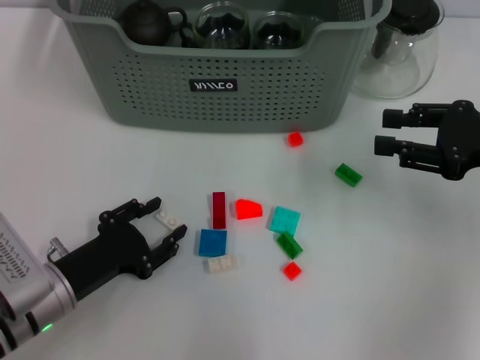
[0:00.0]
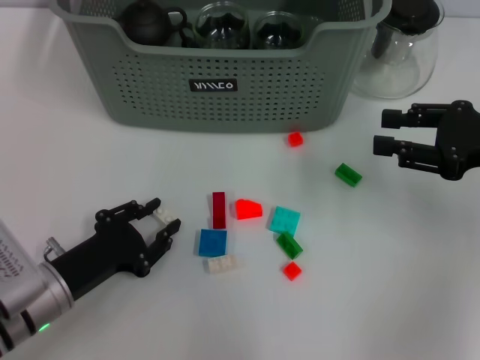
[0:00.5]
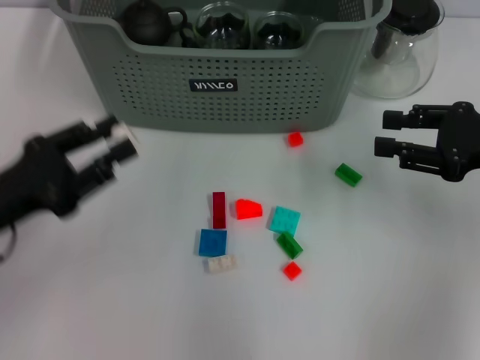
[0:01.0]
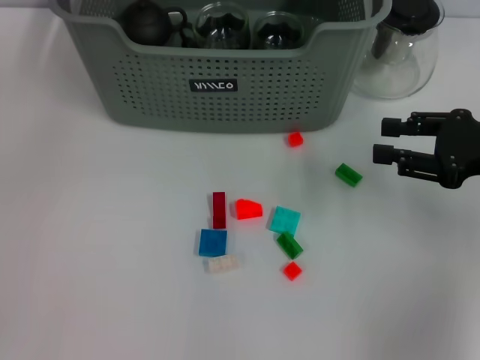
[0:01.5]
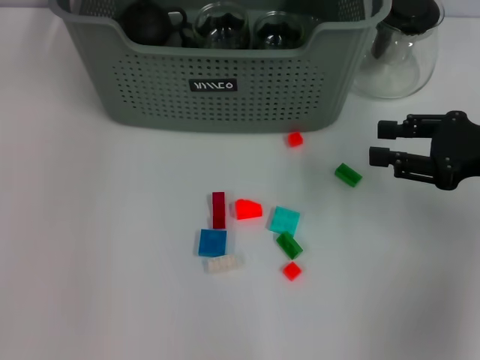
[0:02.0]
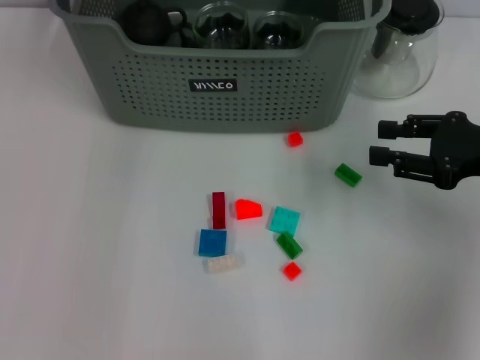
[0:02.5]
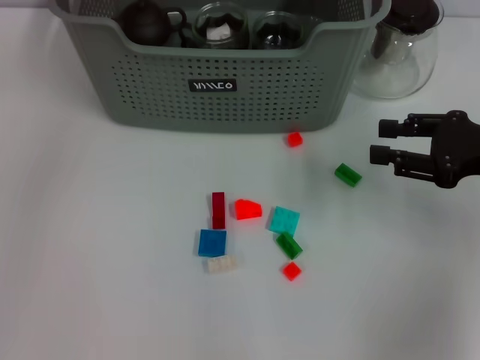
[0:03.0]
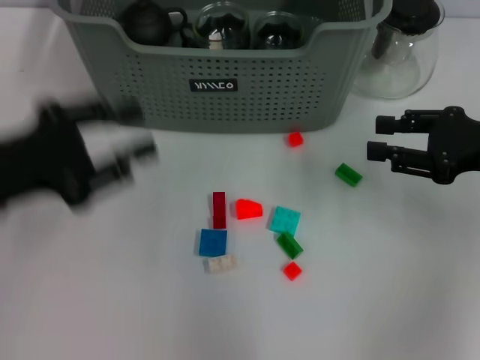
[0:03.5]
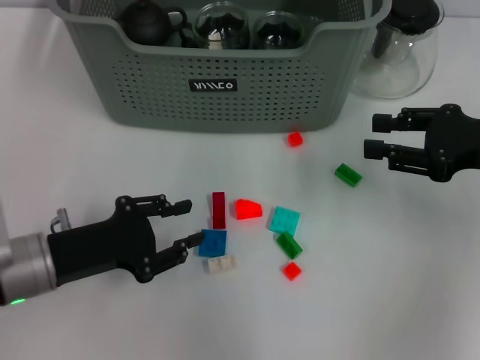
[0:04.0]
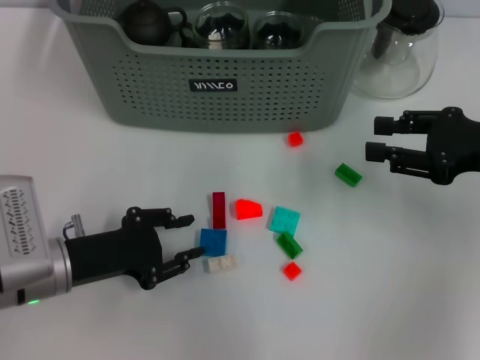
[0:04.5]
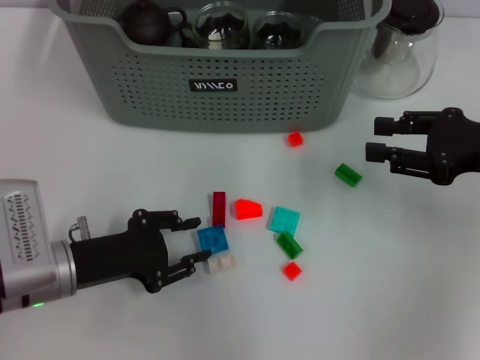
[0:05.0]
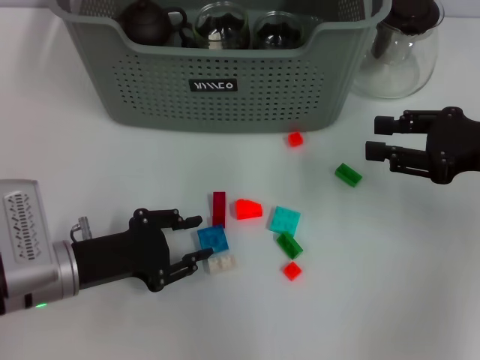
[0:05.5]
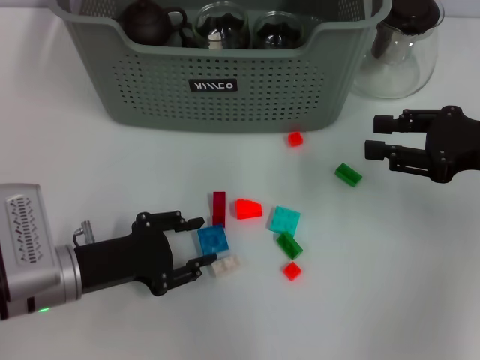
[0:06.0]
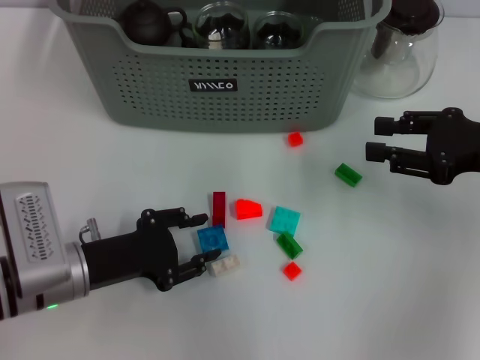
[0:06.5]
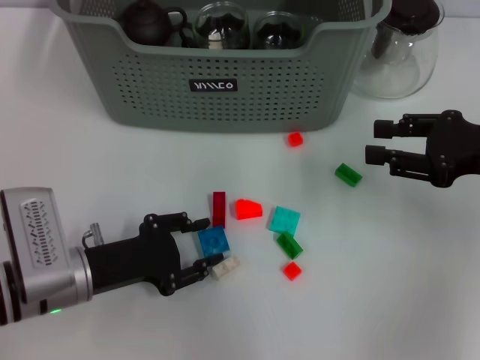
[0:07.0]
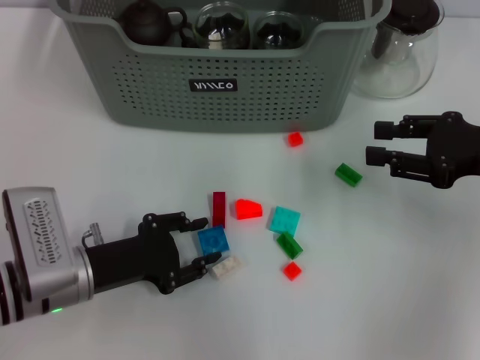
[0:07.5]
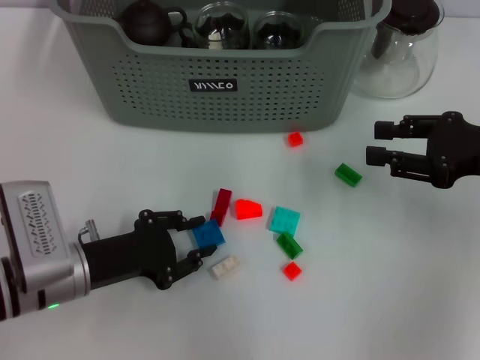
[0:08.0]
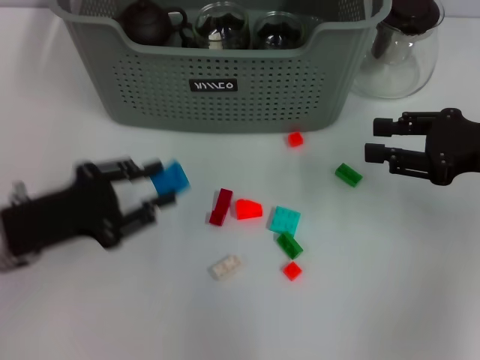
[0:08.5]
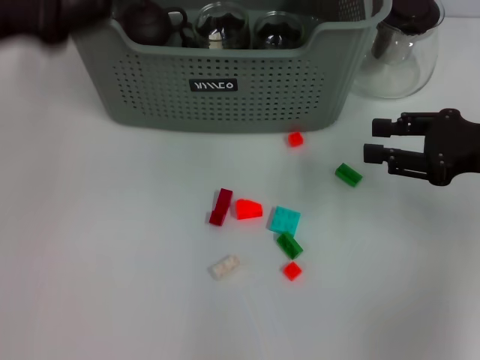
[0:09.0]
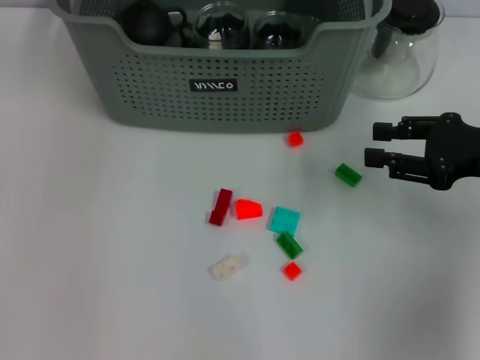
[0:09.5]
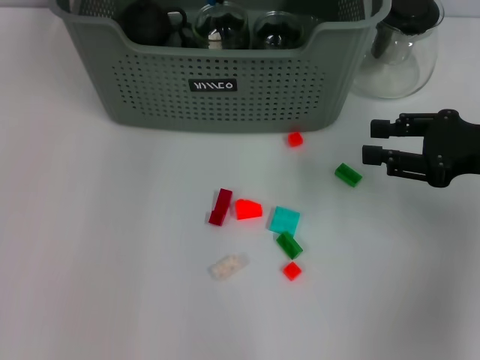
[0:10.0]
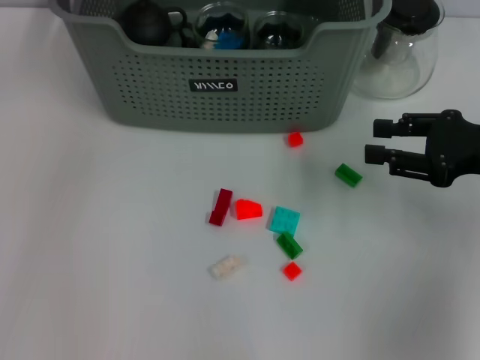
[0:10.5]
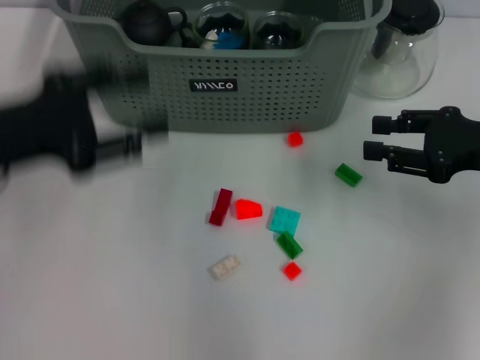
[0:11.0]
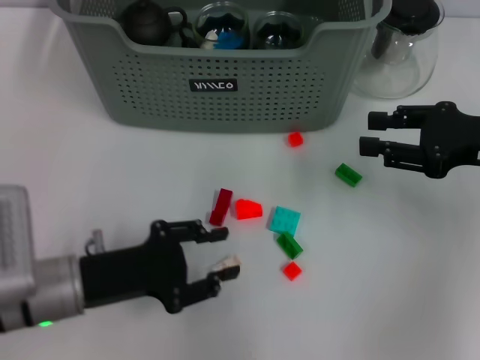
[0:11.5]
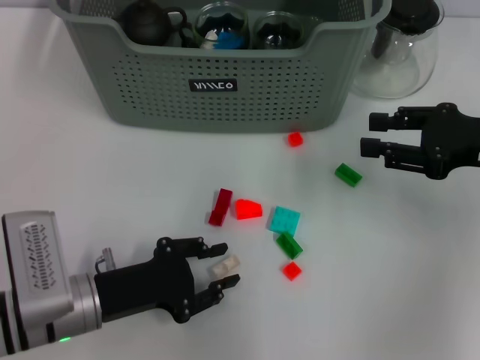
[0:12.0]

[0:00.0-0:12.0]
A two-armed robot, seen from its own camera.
Task of the whole recording: pick up the teacup on the table and place it into the storage bin, pick up the block on the table and place it into the storage bin.
Step, 0:00.5 to 0:02.5: Place the white block in the storage box with left gripper.
Step, 0:03.0 to 0:07.5: Grasp the dark blue block with left gripper.
Step, 0:08.0 to 0:10.0: Place the dark blue block in the storage box with left gripper.
0:00.0 to 0:02.0: The left gripper heads upward and forward, covering approximately 35 cm.
0:02.0 to 0:04.0: The left gripper is displaced backward and downward by about 30 cm.
0:04.0 to 0:06.0: The grippers make only small movements.
0:06.0 to 0:08.0: Both grippers stay about where they are.
0:08.0 to 0:10.0: The left gripper travels forward and upward by approximately 35 cm.
0:10.0 to 0:12.0: The left gripper shifts approximately 35 cm backward and downward.

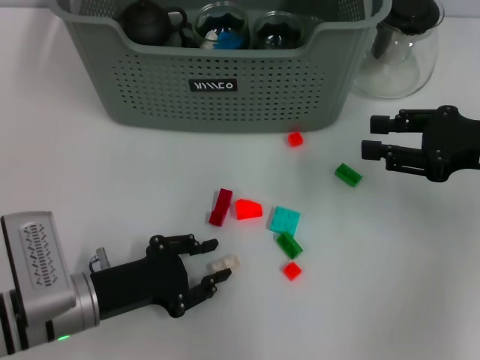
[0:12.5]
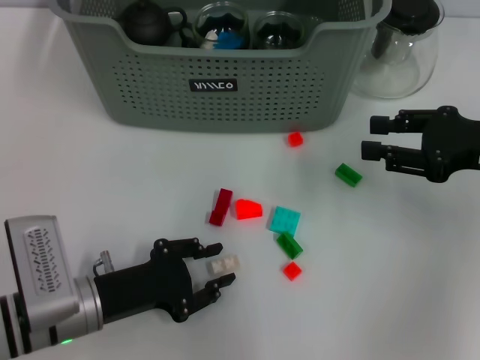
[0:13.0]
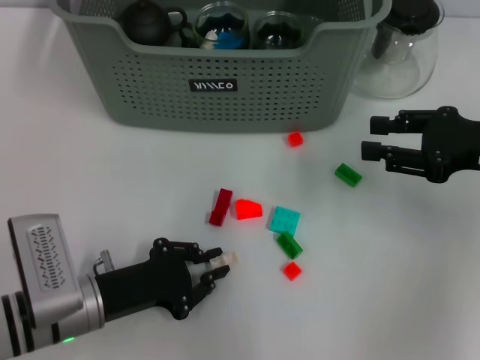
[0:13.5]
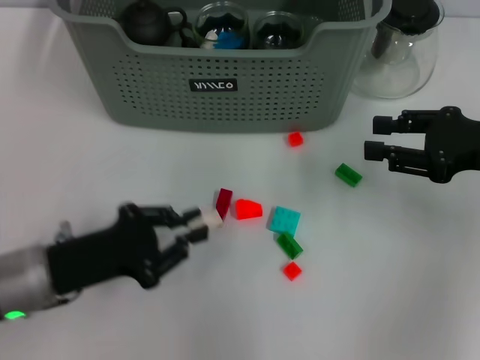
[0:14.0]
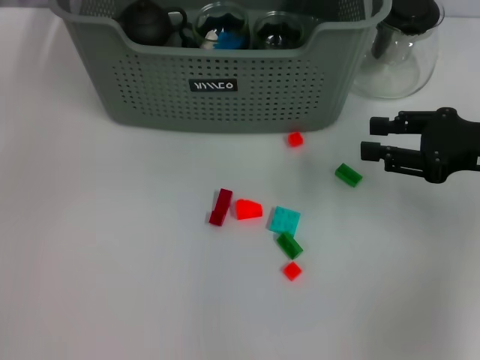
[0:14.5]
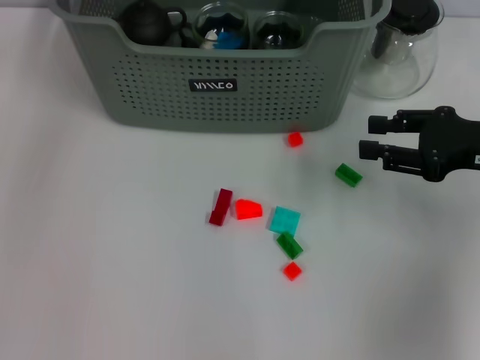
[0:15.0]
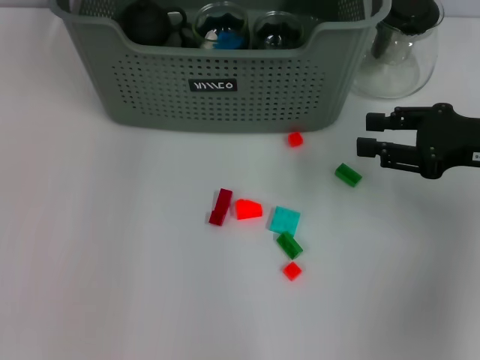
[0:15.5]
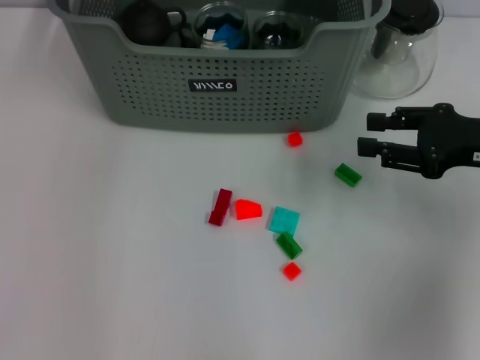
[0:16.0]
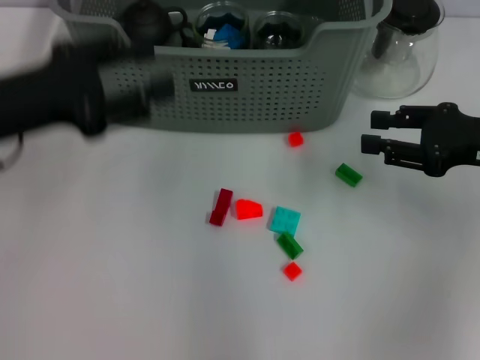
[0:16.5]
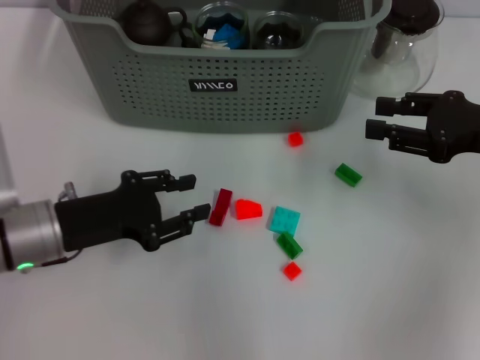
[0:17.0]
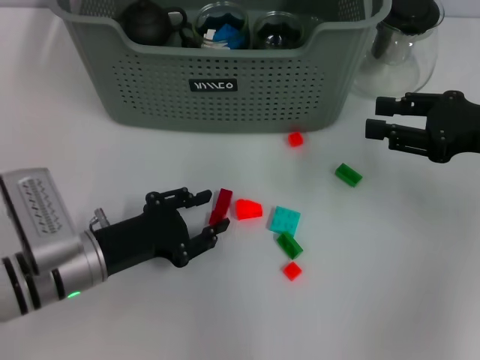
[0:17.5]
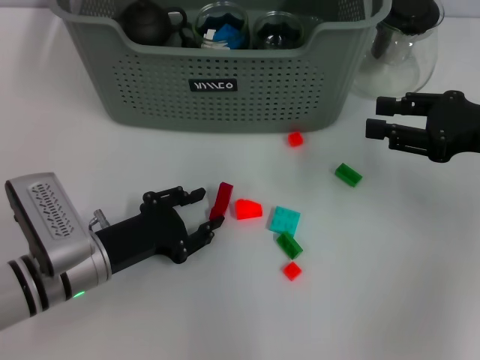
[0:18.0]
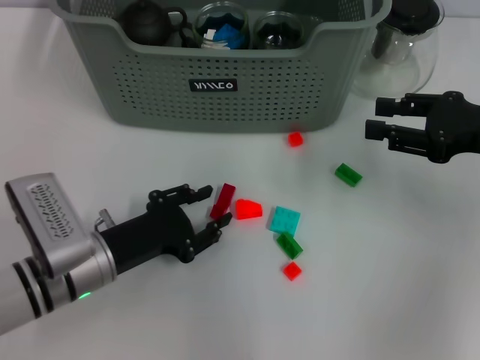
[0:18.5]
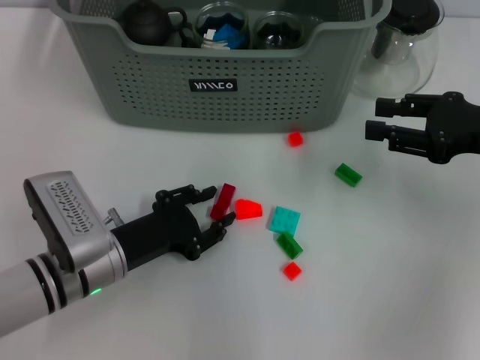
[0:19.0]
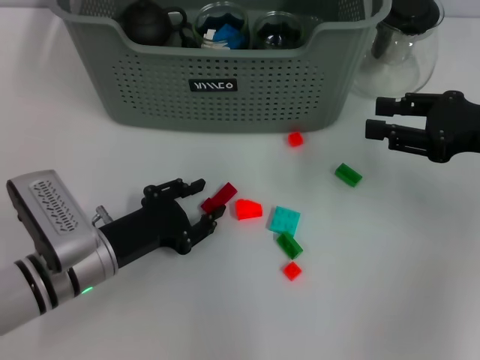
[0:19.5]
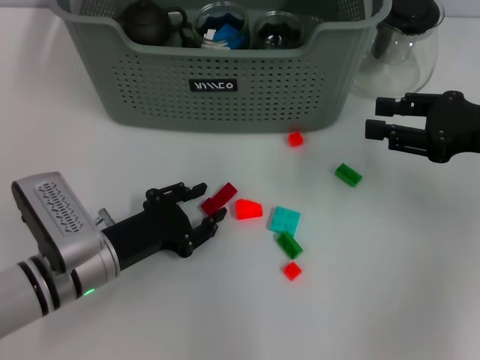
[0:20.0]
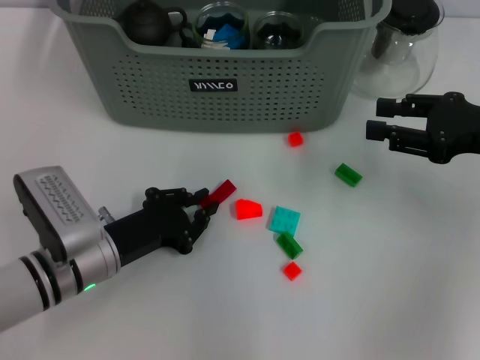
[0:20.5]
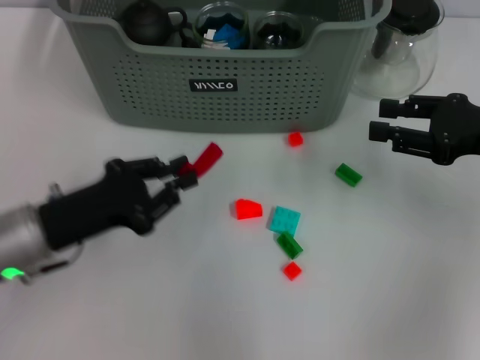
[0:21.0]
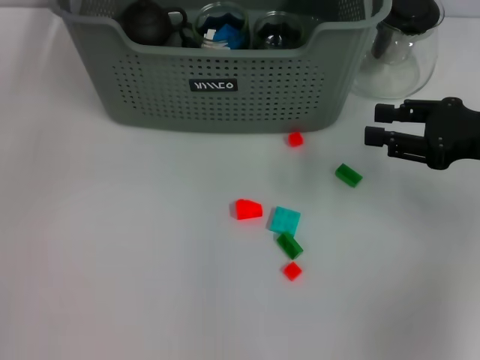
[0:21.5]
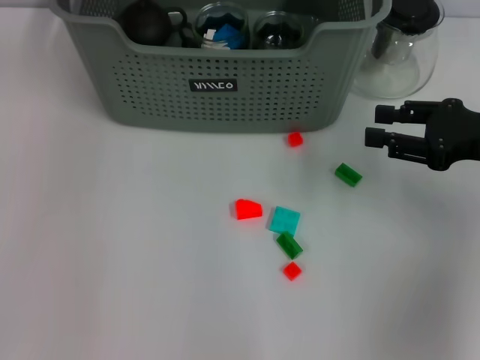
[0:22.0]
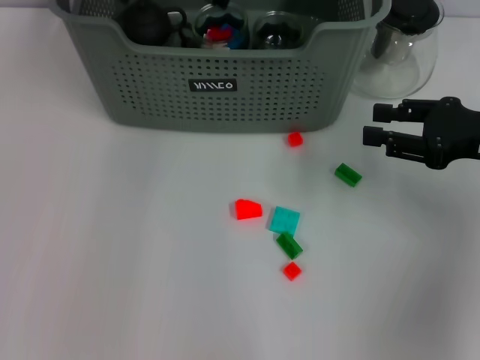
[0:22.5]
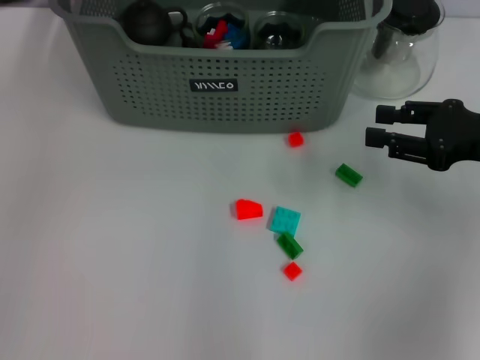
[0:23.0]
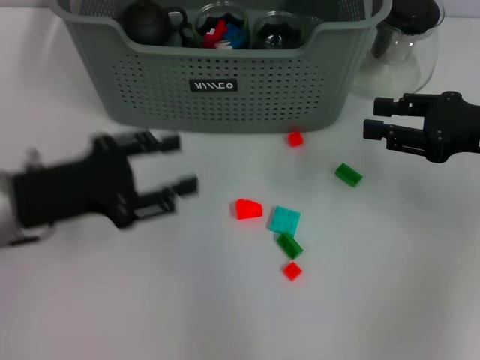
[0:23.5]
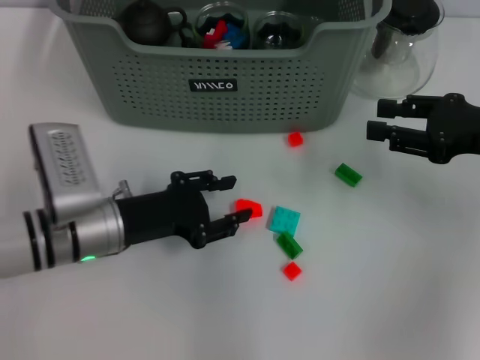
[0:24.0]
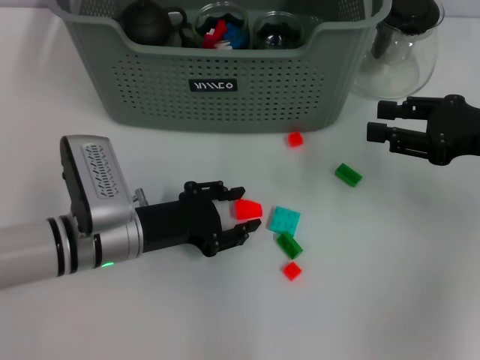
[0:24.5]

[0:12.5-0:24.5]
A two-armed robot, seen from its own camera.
Task of the whole recording: pick up the teacup on the table and place it into the storage bin, pick up the block on the table and place it into the storage bin.
Step, 0:14.0 to 0:15.5: Place the white block in the storage box with left gripper.
Step, 0:16.0 to 0:20.0: Grasp the red block with left gripper.
Step, 0:21.0 to 0:22.5: Place the red block in the storage box with left gripper.
0:12.5 to 0:14.5: The left gripper goes about 25 cm upward and forward.
0:14.5 to 0:16.5: The left gripper travels forward and back again, some 15 cm each way, and opens up.
0:16.5 to 0:18.5: The left gripper goes about 20 cm downward and to the right.
0:18.5 to 0:20.5: The grippers stay close to where they were, moving slightly.
0:20.5 to 0:22.5: The left gripper heads upward and forward, covering approximately 35 cm.
0:22.5 to 0:24.5: The left gripper goes approximately 30 cm downward and backward, and opens its fingers.

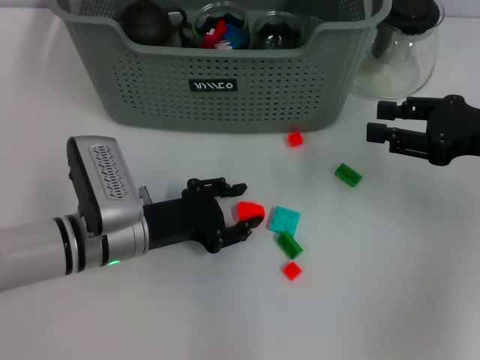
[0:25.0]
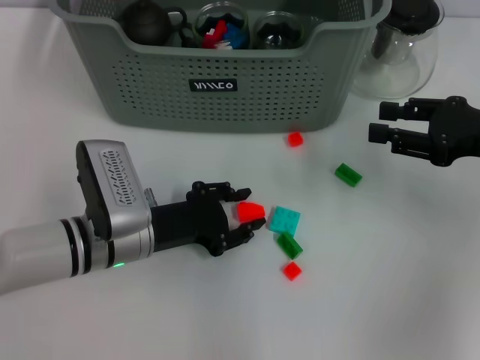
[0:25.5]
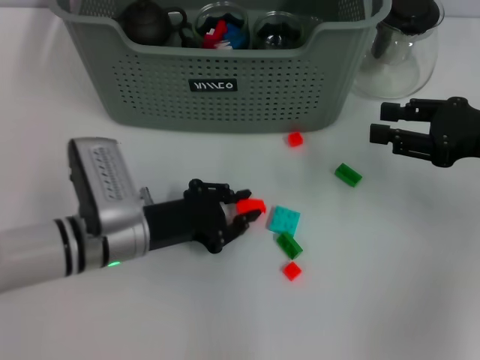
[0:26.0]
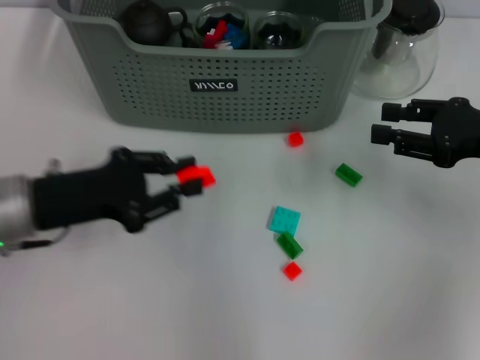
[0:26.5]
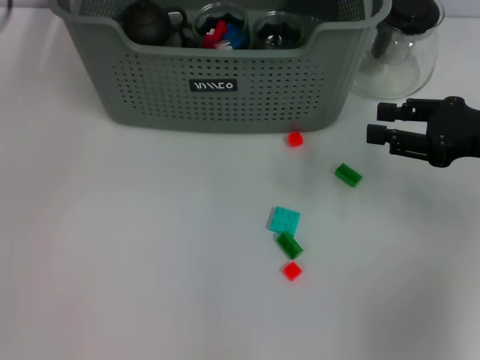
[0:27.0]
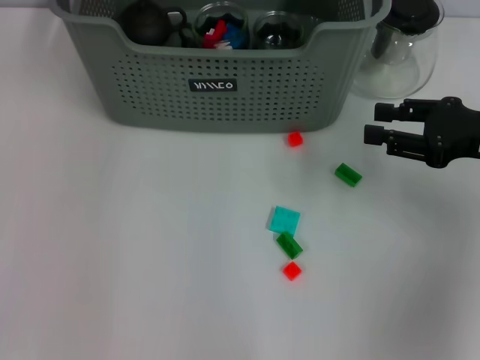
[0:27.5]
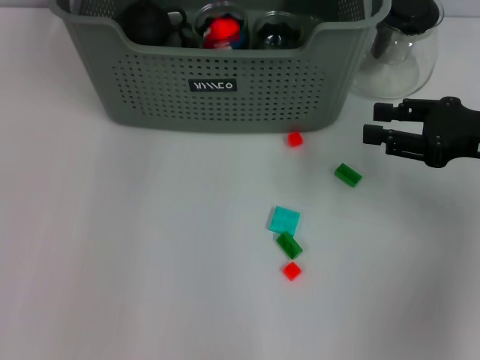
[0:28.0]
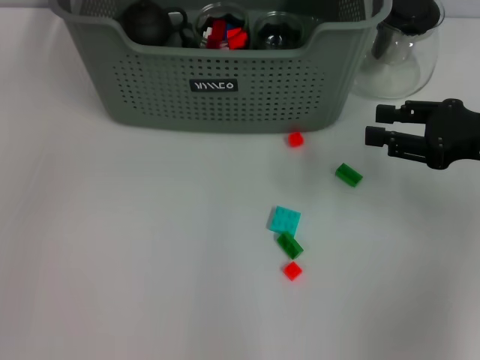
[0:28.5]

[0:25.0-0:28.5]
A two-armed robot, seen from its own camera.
Task of the whole recording: pick up the teacup on the table and place it into the storage bin, pick up the block on the table and place it into the storage bin.
Step, 0:26.0 to 0:28.0: Place the orange block in the storage box with left gripper.
0:25.0 to 0:27.0: The left gripper heads upward and to the left, covering some 25 cm.
